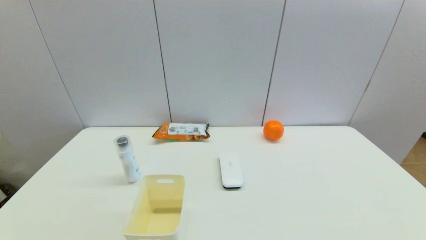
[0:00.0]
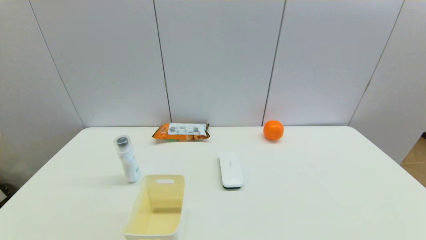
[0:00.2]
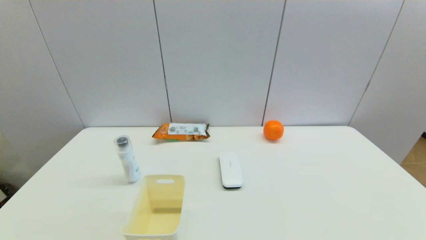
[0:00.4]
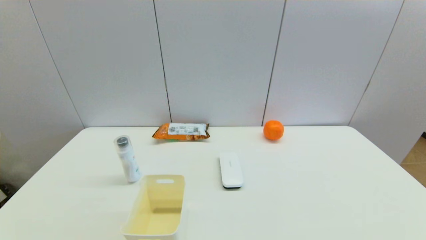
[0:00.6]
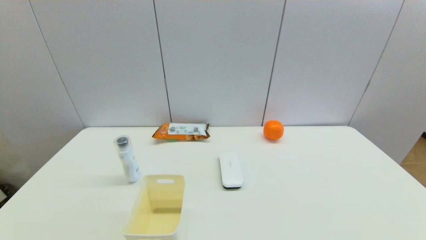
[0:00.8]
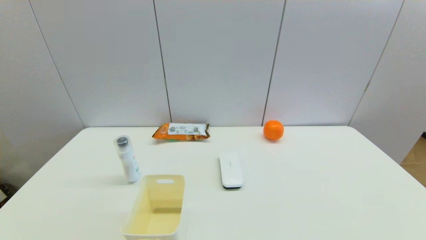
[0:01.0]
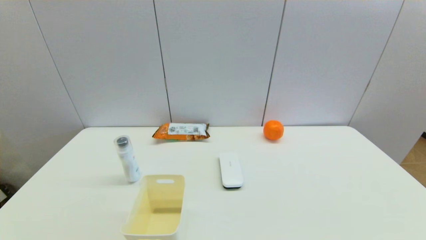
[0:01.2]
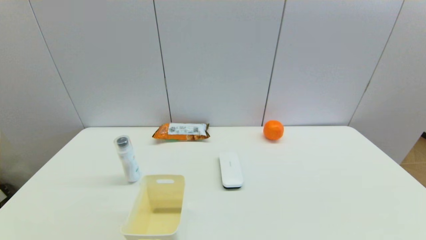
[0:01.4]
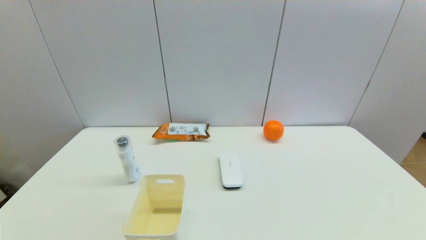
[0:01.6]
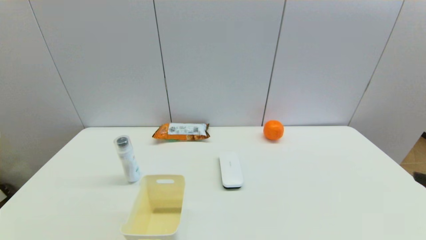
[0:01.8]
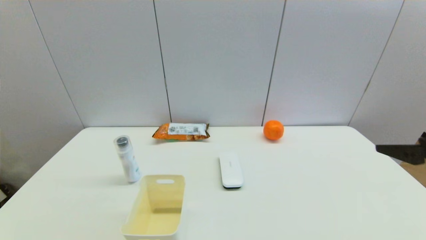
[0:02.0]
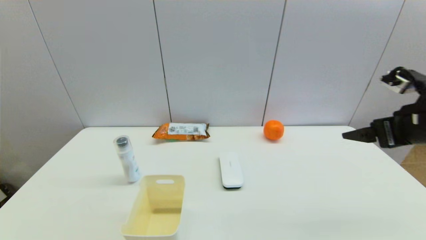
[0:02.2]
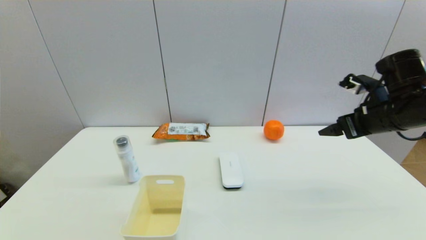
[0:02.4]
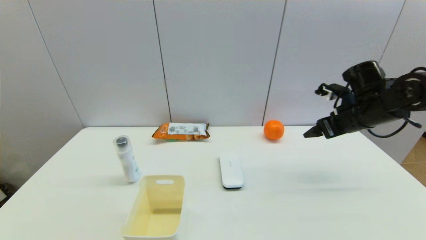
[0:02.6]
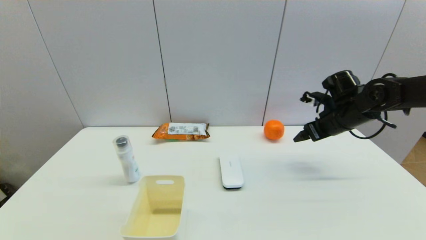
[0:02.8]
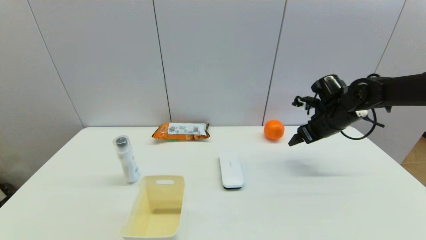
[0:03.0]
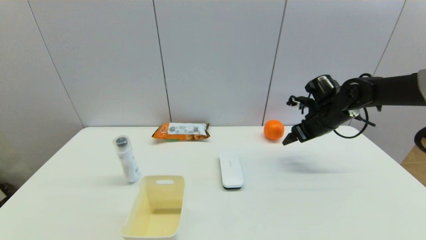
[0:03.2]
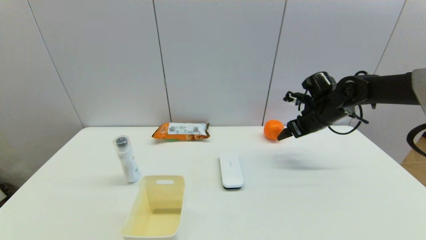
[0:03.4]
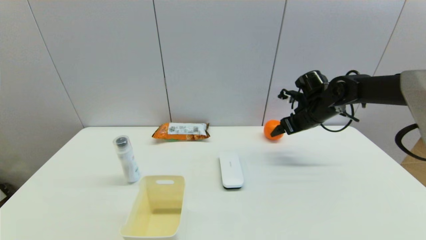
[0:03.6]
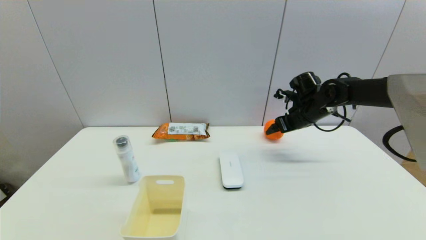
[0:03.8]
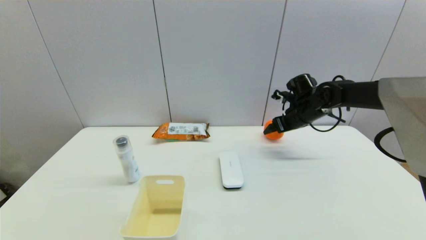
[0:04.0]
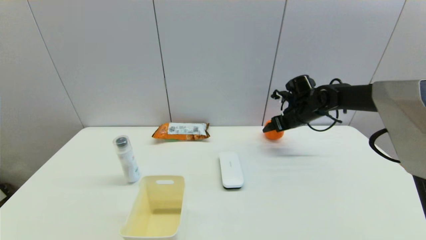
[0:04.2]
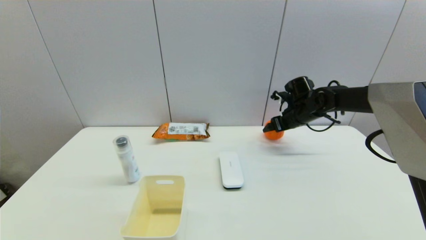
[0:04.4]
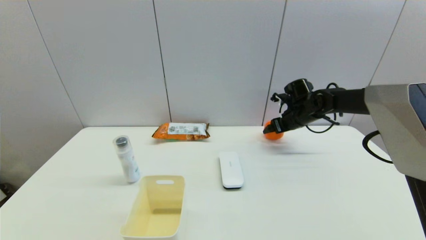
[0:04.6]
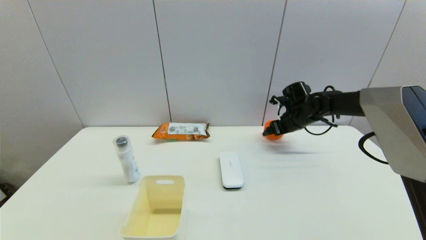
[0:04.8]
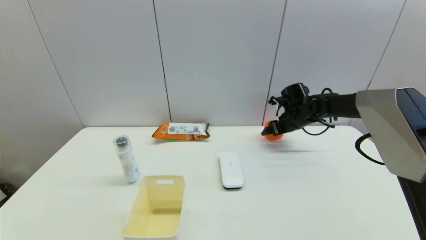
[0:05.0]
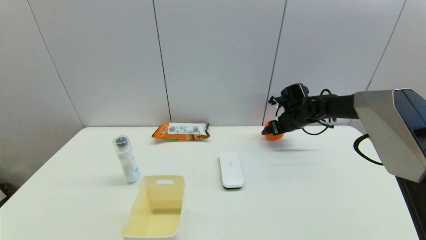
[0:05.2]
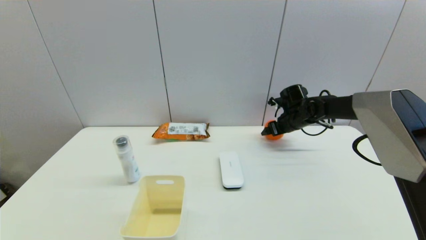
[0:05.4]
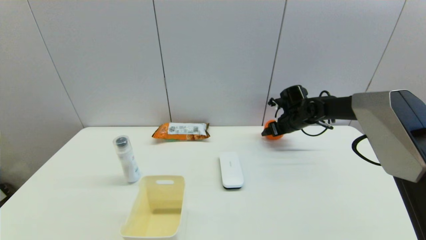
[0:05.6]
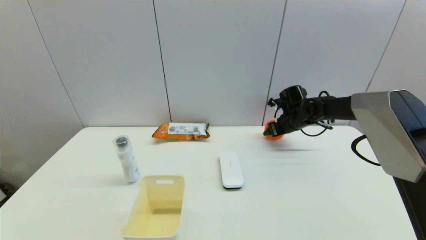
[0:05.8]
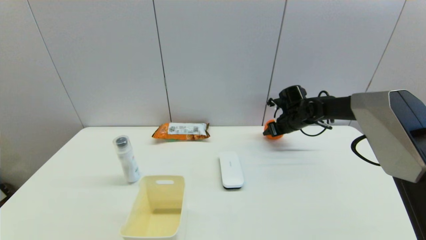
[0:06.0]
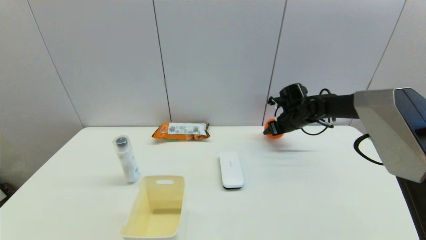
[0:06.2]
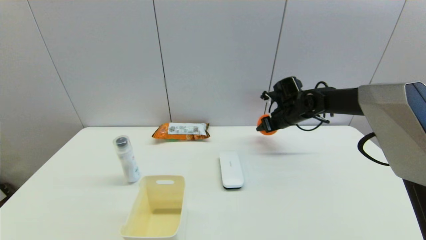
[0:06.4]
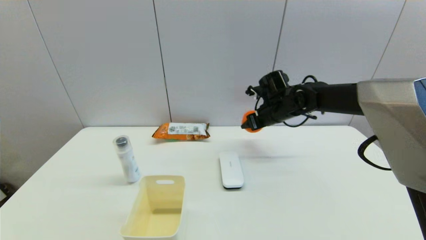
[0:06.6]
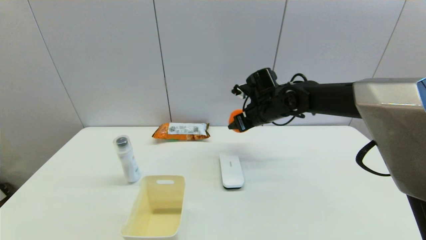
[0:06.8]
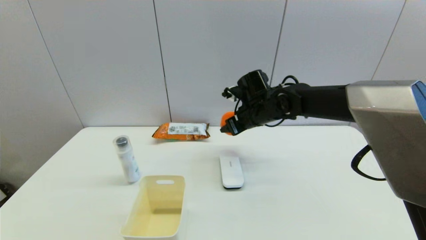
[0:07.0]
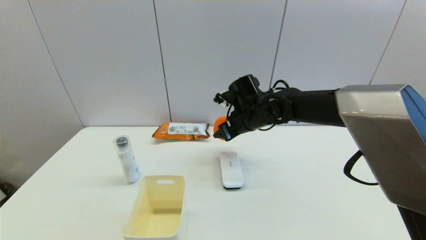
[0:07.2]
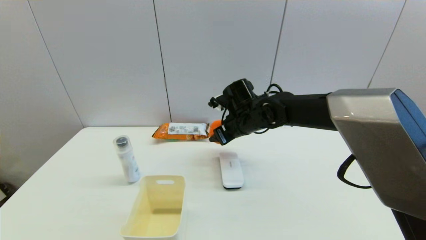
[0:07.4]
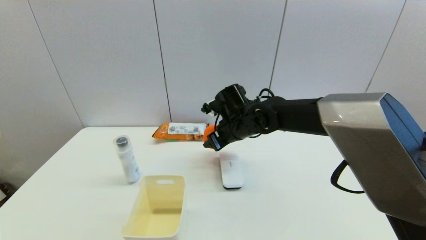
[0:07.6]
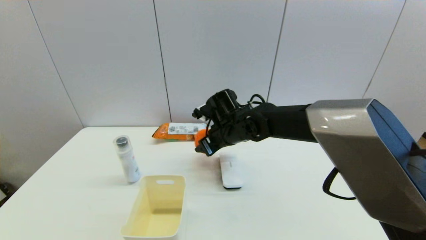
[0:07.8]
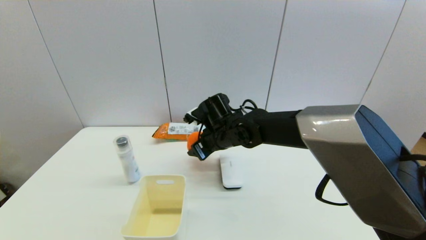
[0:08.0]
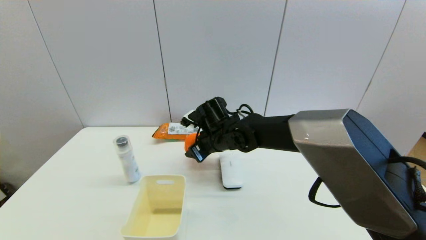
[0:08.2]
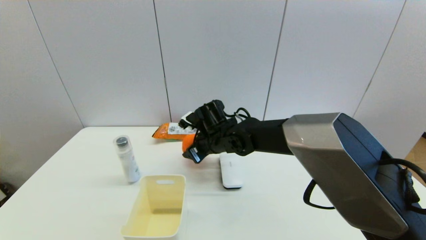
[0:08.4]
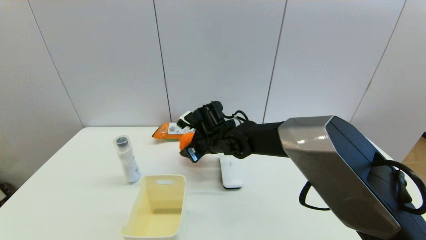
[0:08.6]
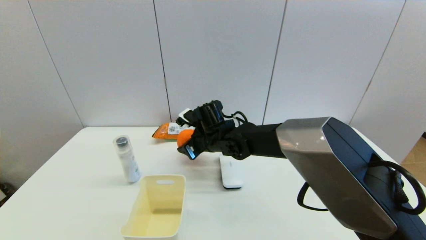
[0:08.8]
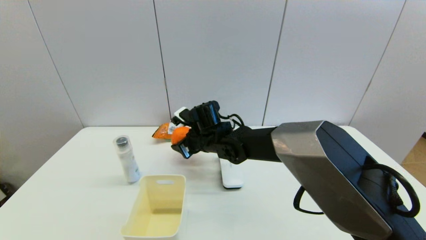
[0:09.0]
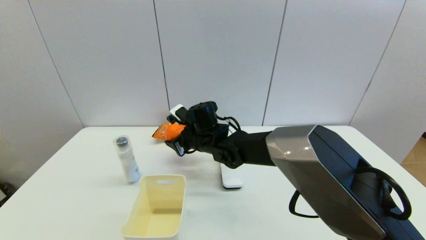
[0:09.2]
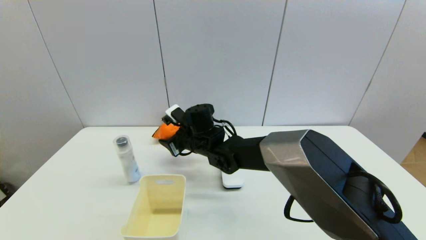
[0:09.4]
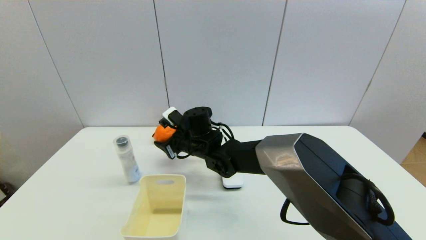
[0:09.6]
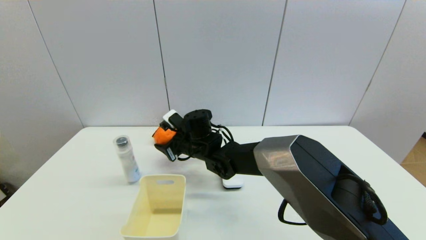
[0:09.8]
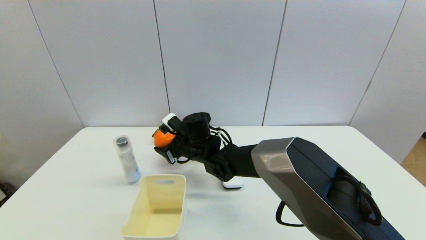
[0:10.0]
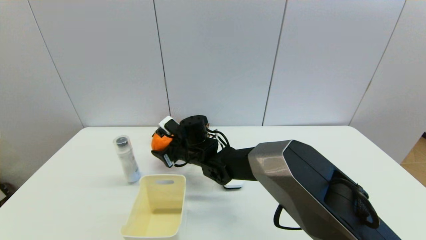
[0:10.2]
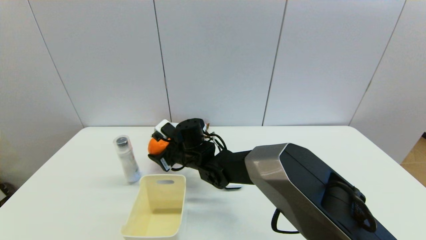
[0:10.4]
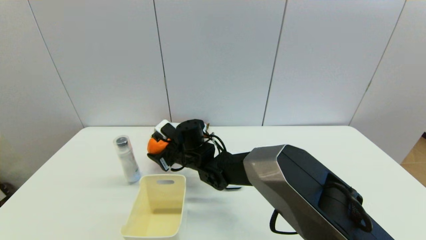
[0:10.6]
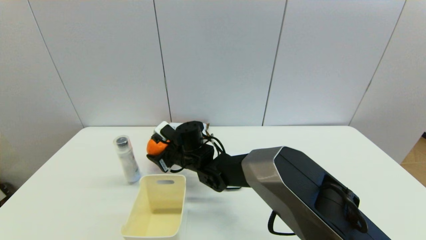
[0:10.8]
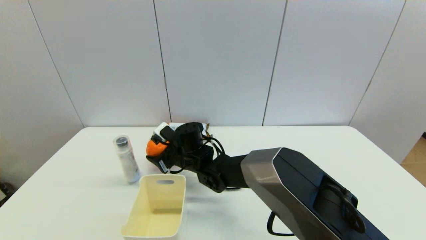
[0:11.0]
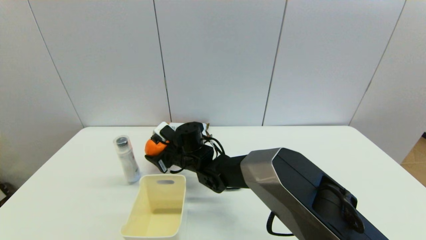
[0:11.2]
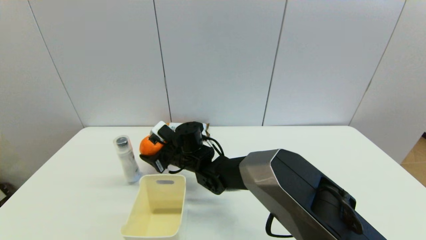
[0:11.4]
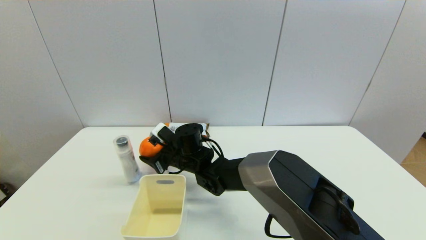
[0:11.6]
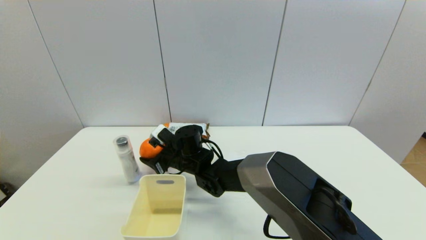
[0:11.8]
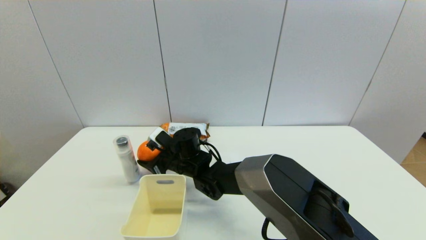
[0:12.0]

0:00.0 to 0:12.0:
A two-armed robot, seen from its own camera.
Step, 0:01.8 to 0:06.0: Grasp the orange with right gripper.
0:01.6 to 0:03.0: The right gripper heads forward, covering roughly 35 cm.
0:03.0 to 0:04.4: The right gripper moves forward, approximately 5 cm.
0:04.4 to 0:06.0: The right gripper closes its fingers.
0:06.0 to 0:07.6: The right gripper travels to the left and backward by some 20 cm.
0:07.6 to 0:09.0: The right gripper travels to the left by roughly 5 cm.
0:09.0 to 0:10.4: The right gripper ends up about 5 cm from where it was.
0:10.4 to 0:12.0: The grippers move only a little.

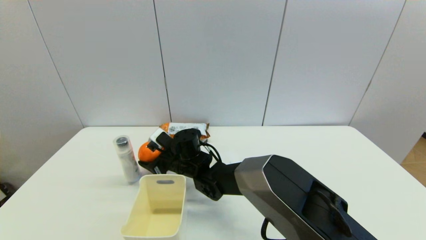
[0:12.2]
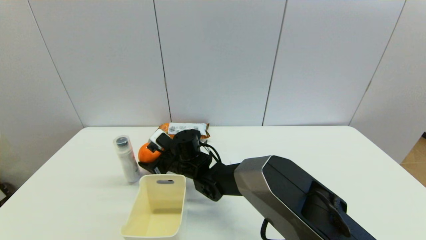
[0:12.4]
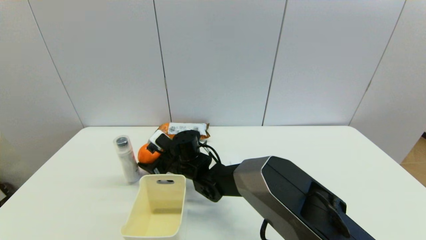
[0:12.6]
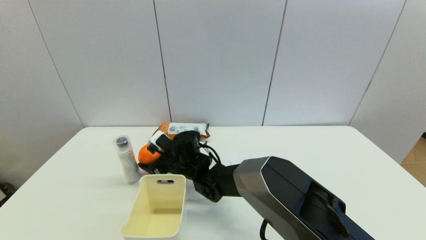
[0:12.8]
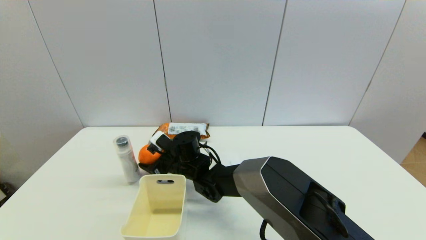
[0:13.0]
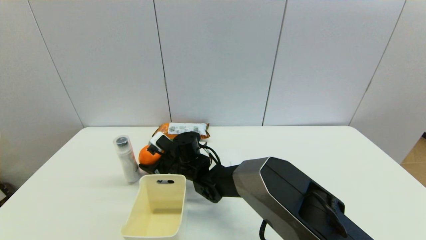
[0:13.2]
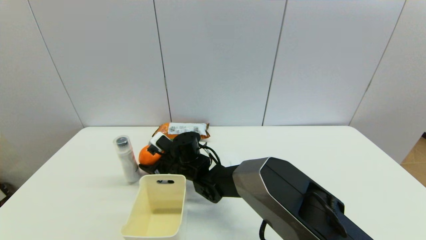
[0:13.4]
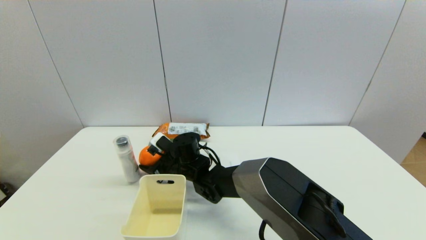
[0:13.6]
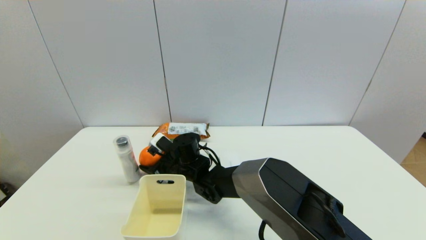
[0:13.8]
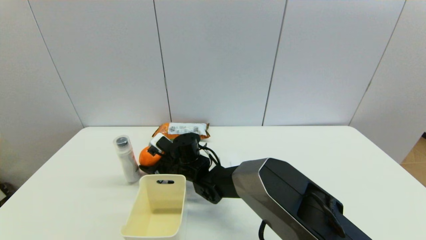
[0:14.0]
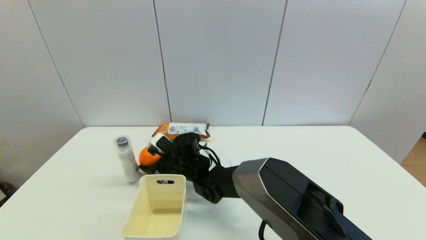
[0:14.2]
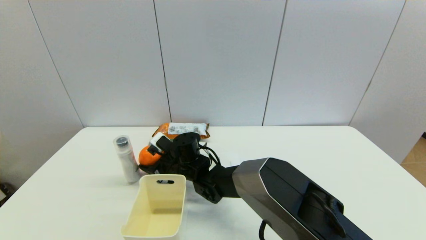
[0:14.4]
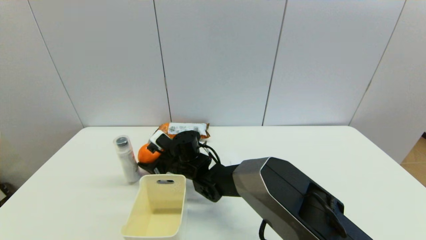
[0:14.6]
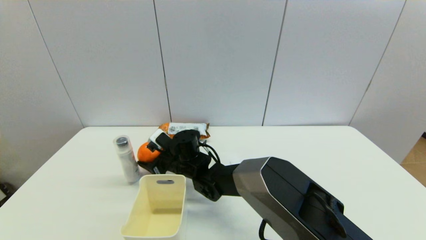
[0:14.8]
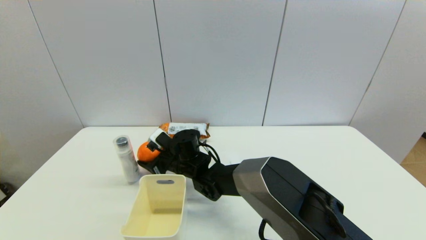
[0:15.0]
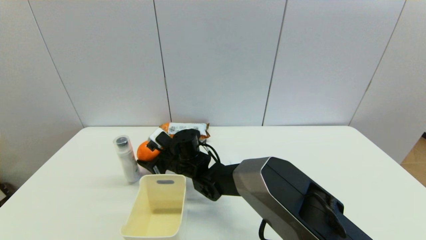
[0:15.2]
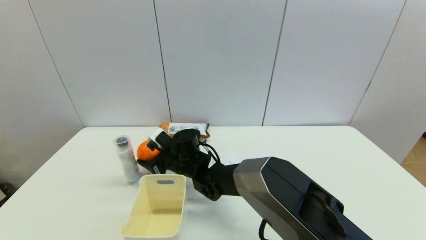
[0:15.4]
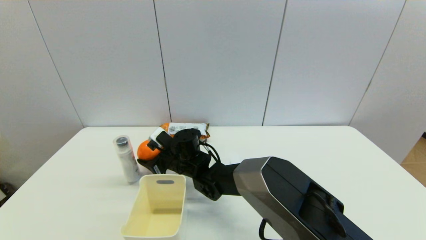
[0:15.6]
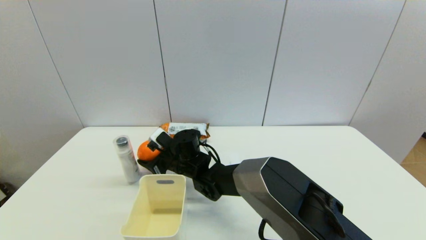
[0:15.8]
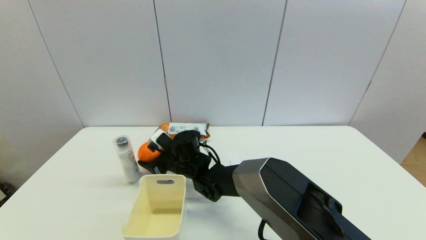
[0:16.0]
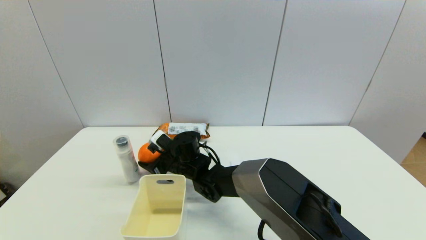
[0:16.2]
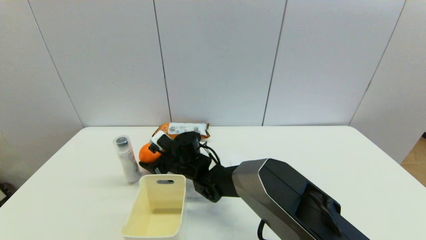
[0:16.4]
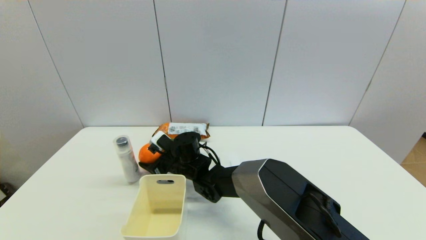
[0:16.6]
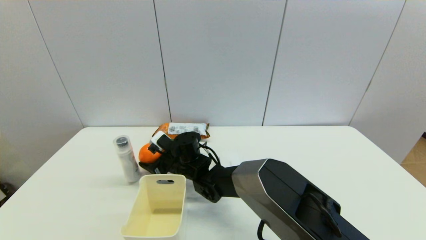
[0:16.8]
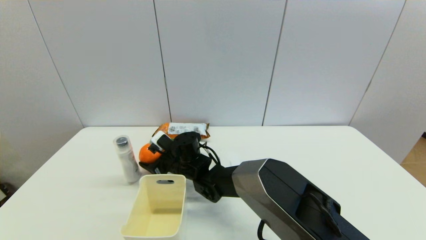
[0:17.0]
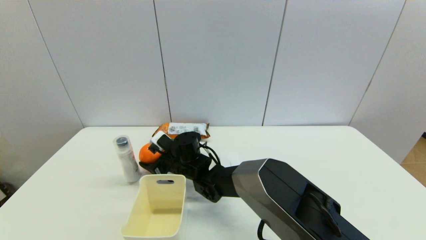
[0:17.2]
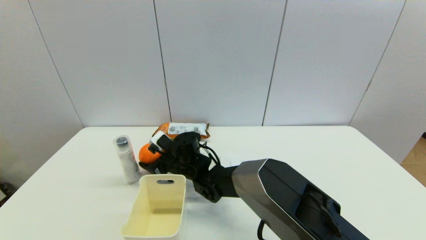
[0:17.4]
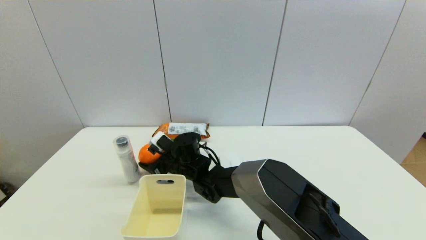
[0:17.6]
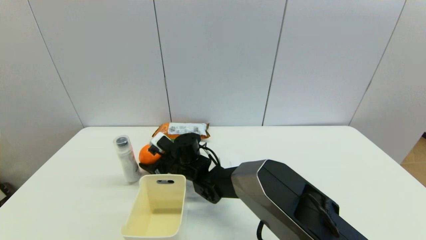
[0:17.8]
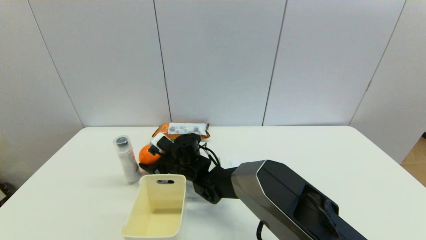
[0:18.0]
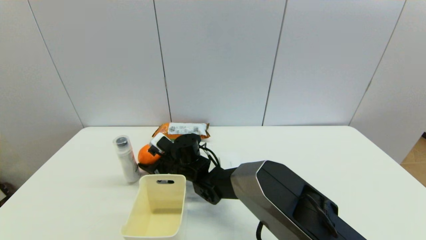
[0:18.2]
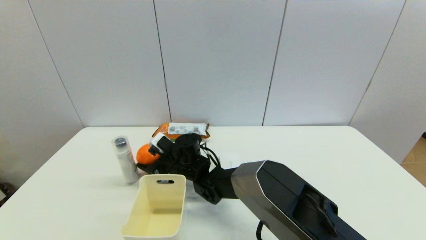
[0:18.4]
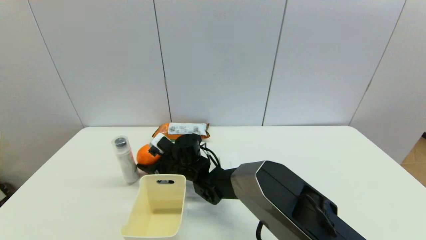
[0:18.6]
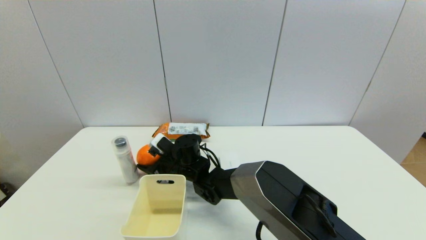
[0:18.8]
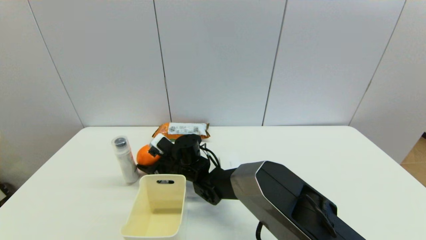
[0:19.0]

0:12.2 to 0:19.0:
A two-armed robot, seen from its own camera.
0:12.2 to 0:17.6: Both grippers stay about where they are.
0:17.6 to 0:19.0: Neither gripper changes place.
